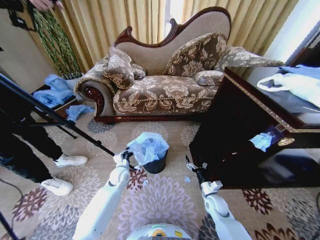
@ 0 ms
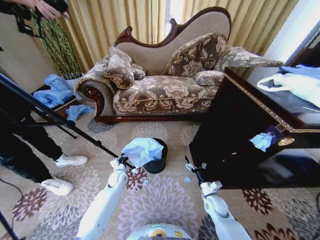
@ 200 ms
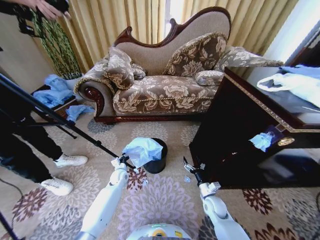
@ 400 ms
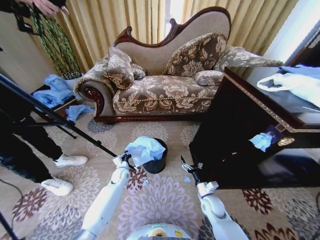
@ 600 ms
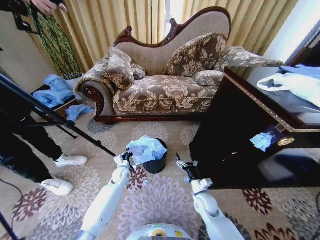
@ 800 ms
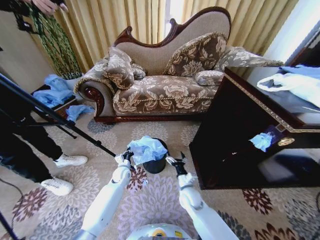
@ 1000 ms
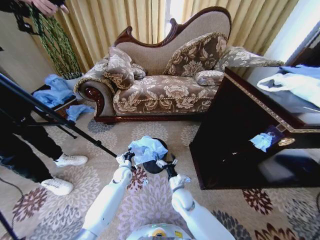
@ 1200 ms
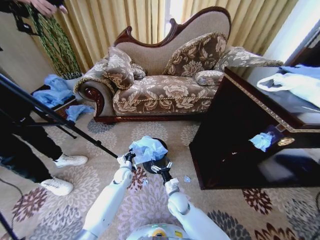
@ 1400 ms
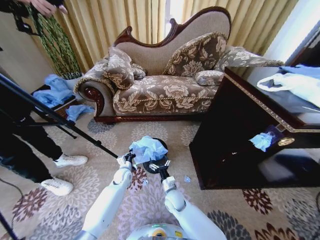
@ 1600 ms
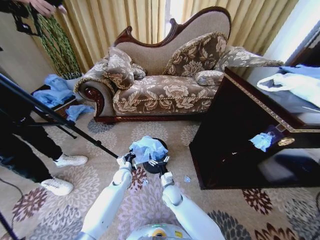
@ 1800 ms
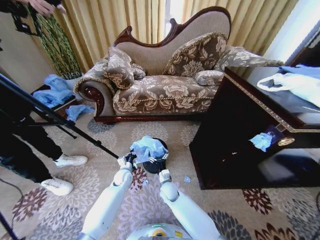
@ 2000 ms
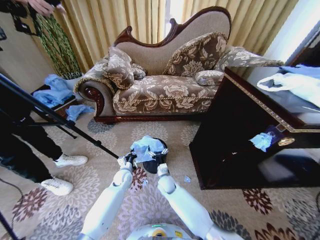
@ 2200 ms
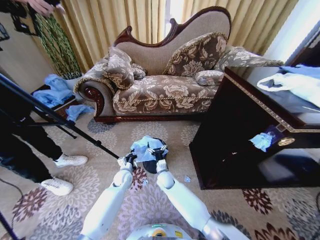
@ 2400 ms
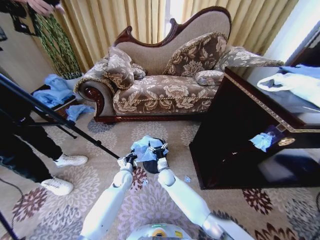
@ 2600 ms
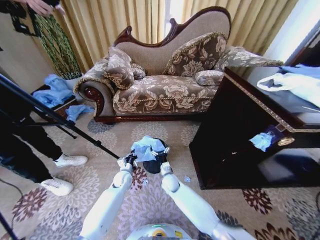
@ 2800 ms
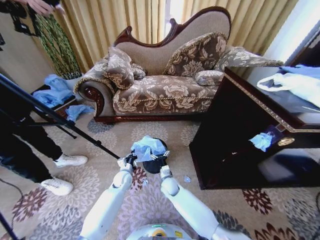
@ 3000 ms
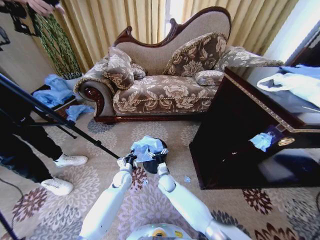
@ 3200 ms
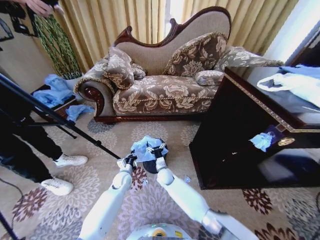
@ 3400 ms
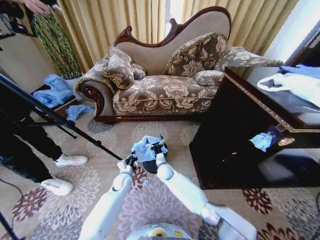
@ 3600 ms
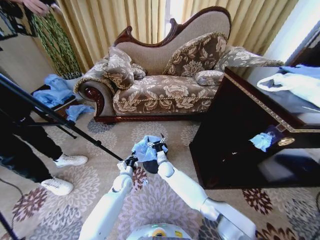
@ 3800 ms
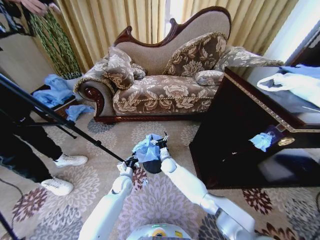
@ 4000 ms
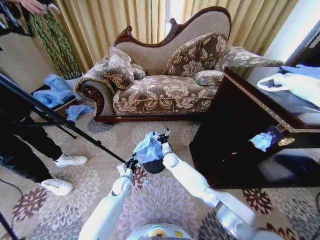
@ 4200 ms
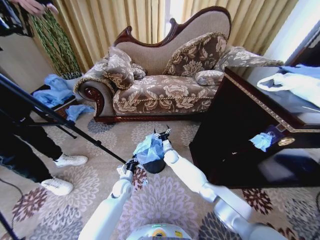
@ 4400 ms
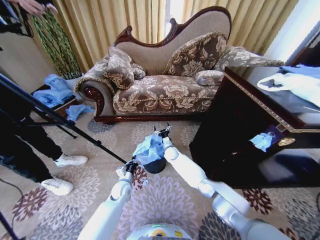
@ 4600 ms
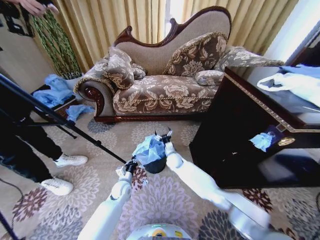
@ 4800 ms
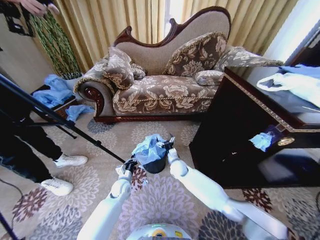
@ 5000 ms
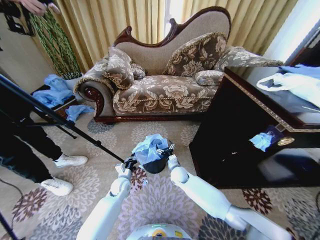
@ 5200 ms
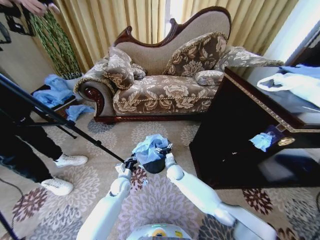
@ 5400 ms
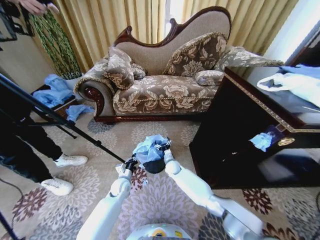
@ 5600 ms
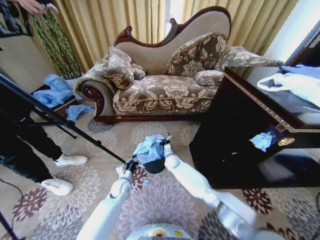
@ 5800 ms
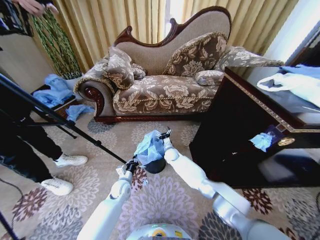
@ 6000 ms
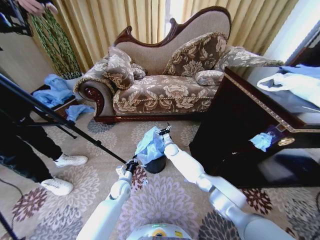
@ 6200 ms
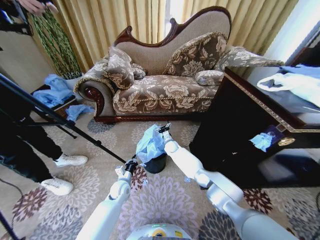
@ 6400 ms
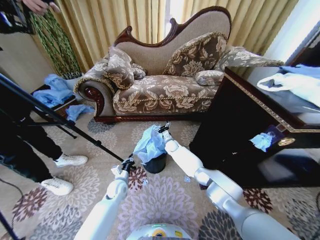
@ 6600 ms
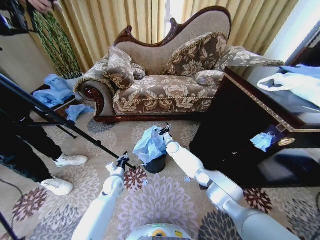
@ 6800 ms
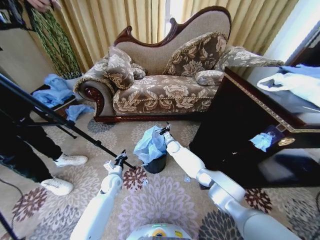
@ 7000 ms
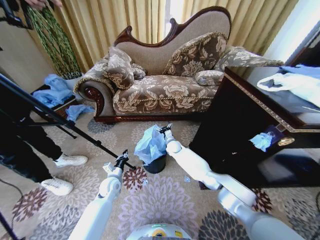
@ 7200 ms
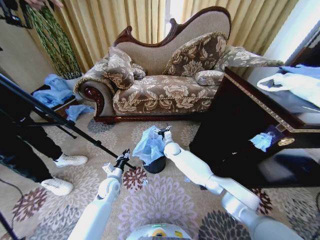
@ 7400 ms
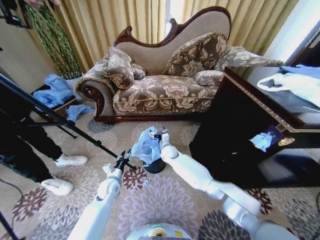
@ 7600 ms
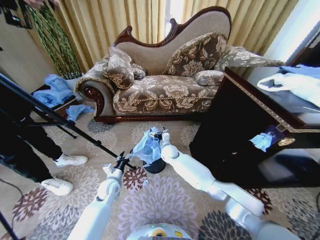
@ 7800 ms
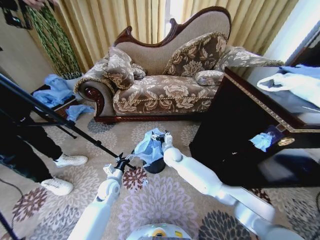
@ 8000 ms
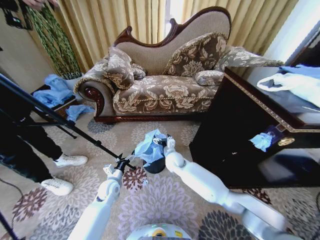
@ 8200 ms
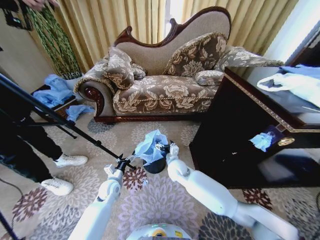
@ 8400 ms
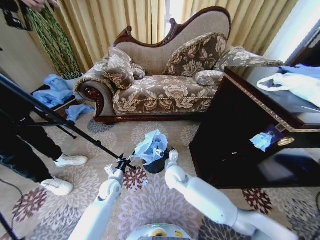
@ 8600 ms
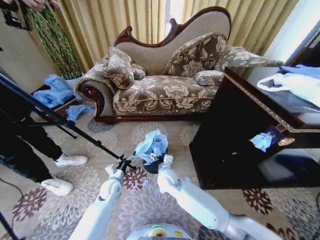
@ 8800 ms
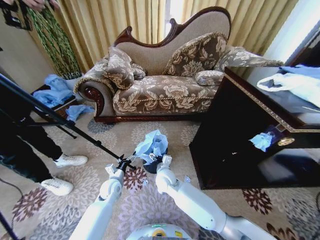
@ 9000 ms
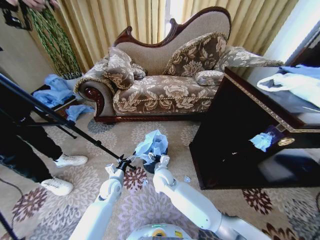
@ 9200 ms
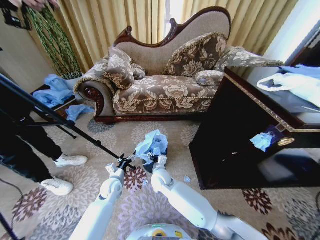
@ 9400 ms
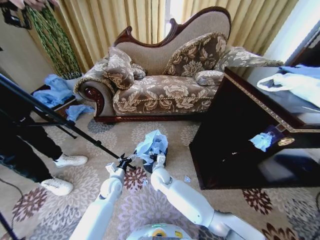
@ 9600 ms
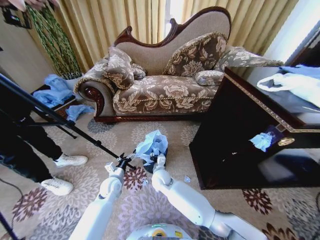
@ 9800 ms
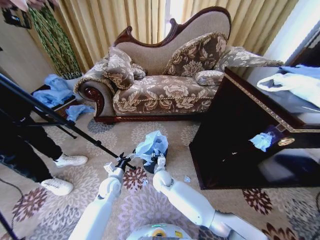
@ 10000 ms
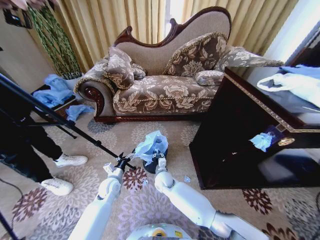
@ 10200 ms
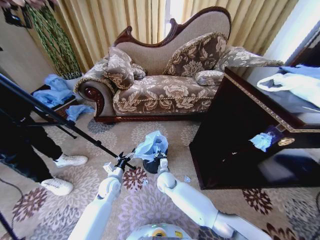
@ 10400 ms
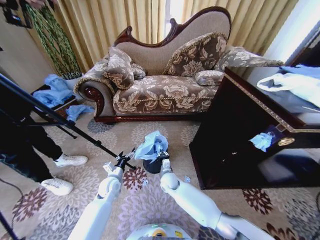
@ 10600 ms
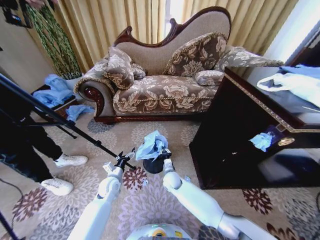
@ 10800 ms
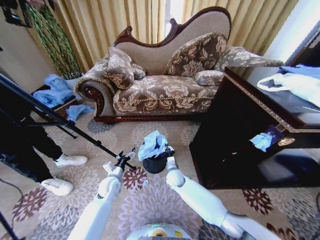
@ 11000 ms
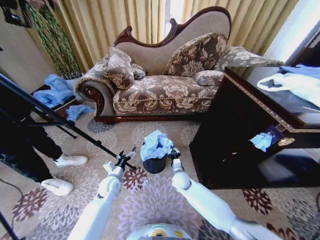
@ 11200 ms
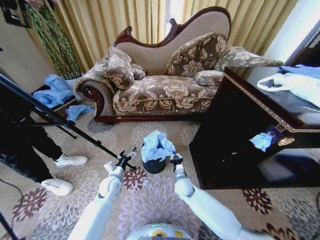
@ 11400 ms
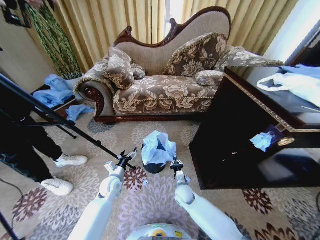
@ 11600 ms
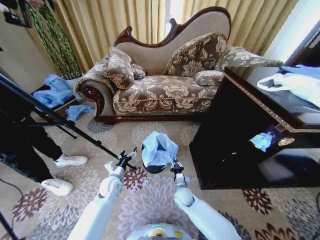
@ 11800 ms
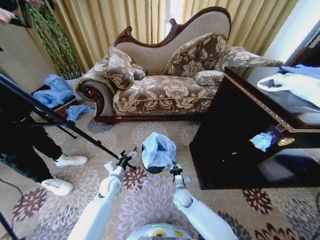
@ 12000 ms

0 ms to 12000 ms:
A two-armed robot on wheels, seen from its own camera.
Task of the whole recording: Place a garbage bag over the trash bin.
0 ms to 1600 ms: The right gripper goes some 20 cm to the left.
1600 ms to 3000 ms: The right gripper moves forward, some 5 cm.
3000 ms to 4400 ms: The right gripper moves forward, some 15 cm.
4400 ms to 6000 ms: The right gripper moves roughly 10 cm backward and comes back.
6000 ms to 7600 ms: The right gripper moves upward, some 5 cm, while the left gripper ends up roughly 5 cm from where it was, and opens.
7600 ms to 9000 ms: The right gripper goes about 15 cm backward; the left gripper opens up.
9000 ms to 10400 ms: The right gripper moves downward, about 10 cm, and closes up.
10400 ms to 12000 ms: The right gripper is displaced to the right, downward and backward by some 15 cm.

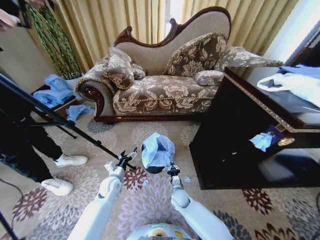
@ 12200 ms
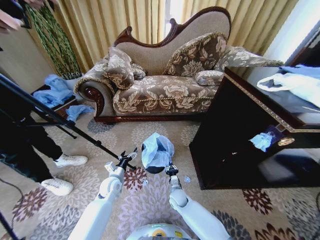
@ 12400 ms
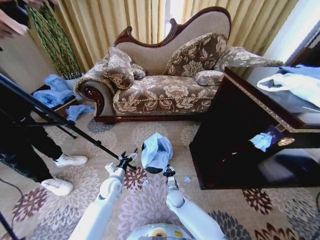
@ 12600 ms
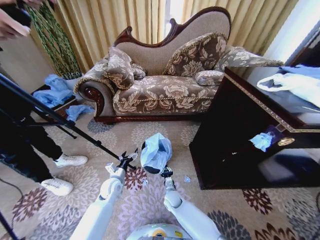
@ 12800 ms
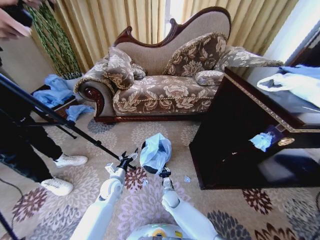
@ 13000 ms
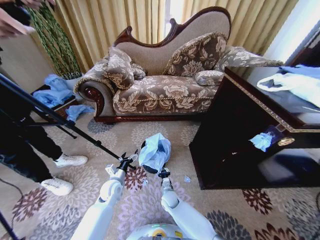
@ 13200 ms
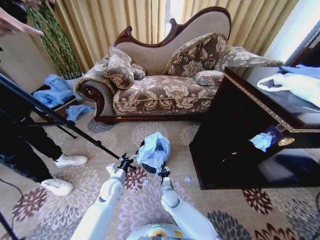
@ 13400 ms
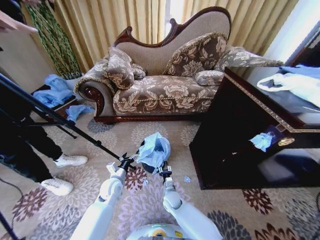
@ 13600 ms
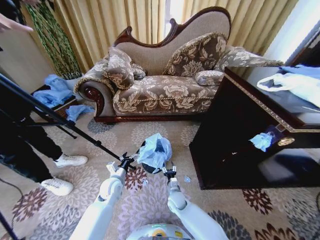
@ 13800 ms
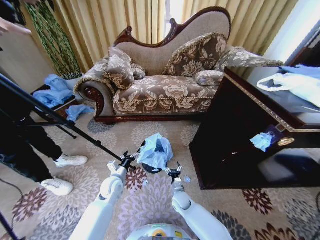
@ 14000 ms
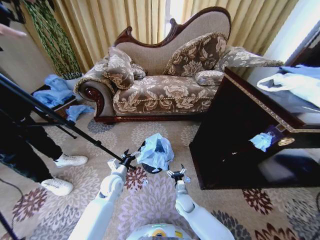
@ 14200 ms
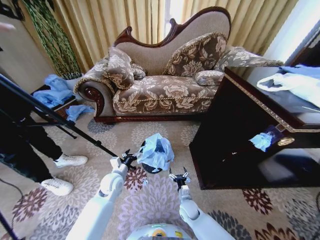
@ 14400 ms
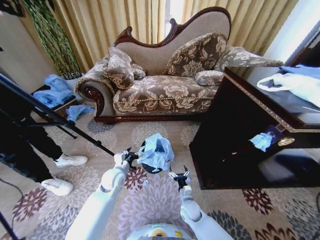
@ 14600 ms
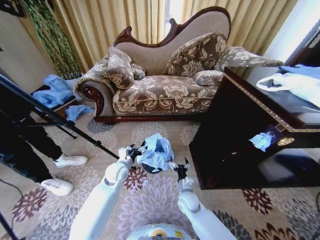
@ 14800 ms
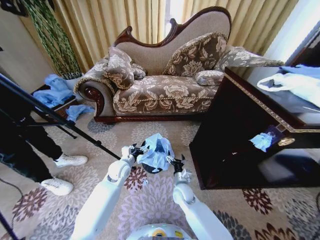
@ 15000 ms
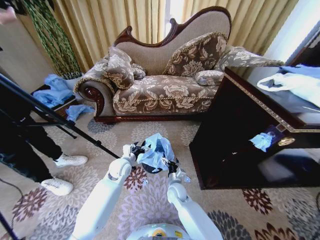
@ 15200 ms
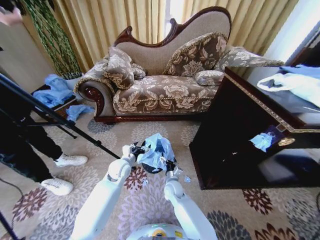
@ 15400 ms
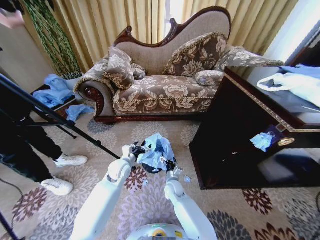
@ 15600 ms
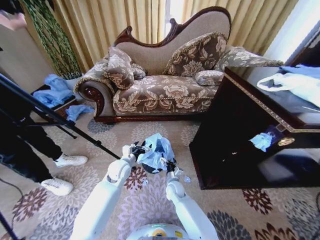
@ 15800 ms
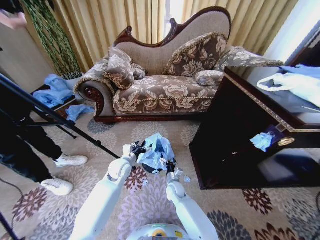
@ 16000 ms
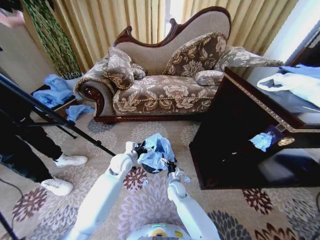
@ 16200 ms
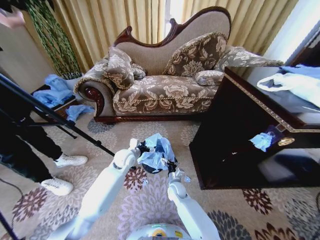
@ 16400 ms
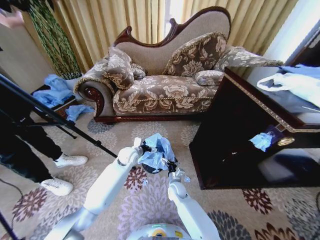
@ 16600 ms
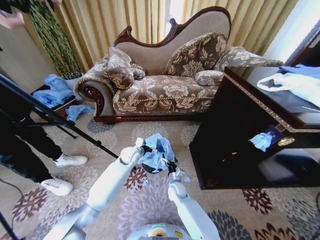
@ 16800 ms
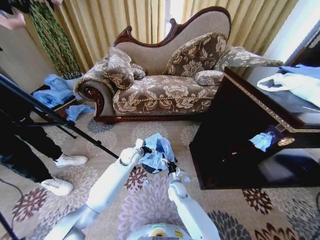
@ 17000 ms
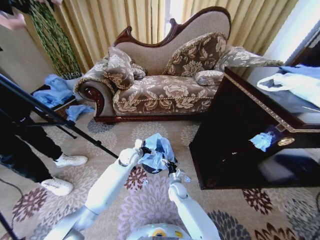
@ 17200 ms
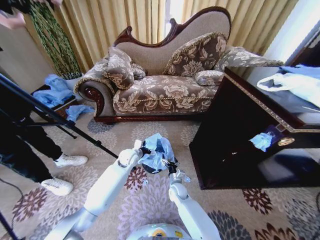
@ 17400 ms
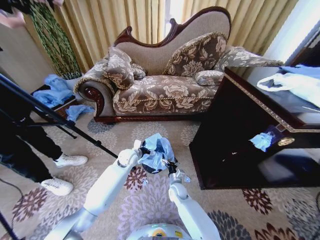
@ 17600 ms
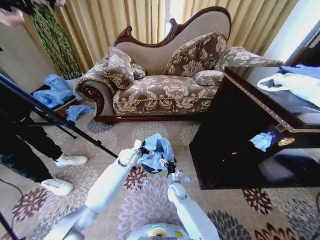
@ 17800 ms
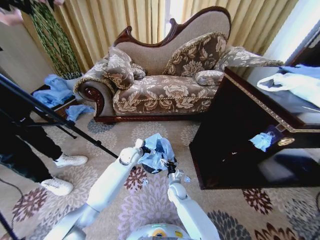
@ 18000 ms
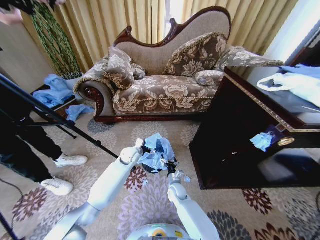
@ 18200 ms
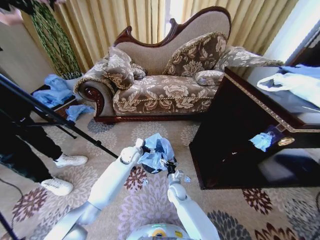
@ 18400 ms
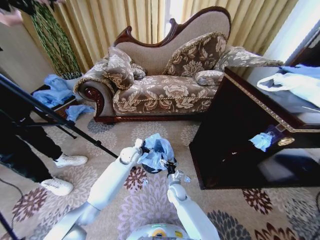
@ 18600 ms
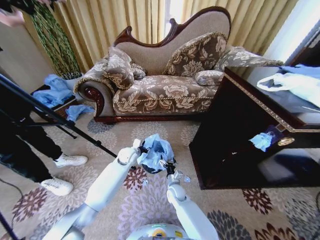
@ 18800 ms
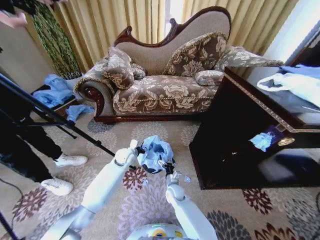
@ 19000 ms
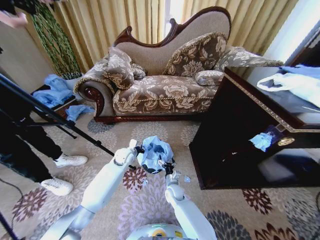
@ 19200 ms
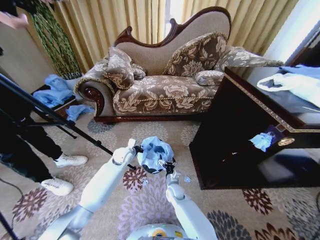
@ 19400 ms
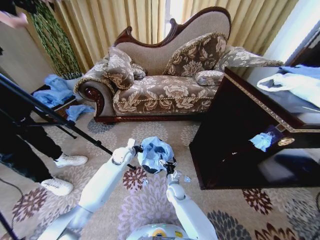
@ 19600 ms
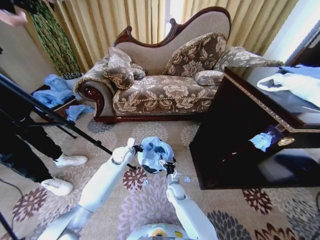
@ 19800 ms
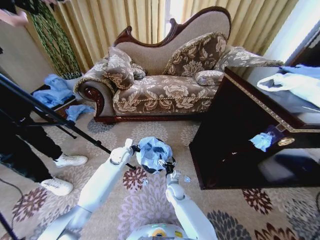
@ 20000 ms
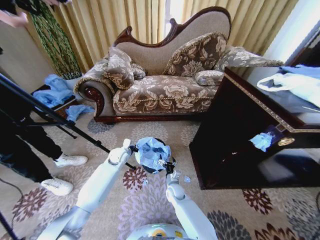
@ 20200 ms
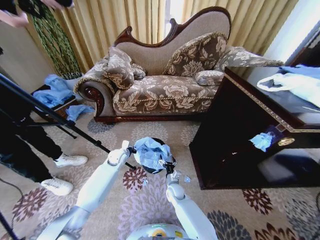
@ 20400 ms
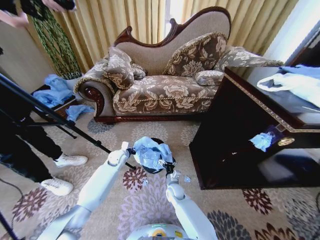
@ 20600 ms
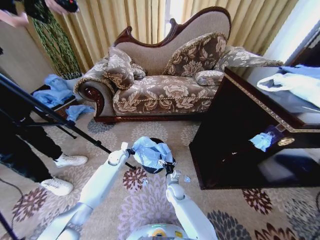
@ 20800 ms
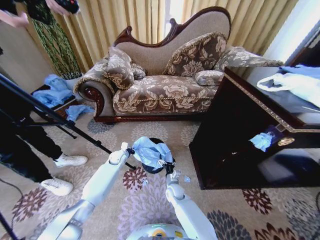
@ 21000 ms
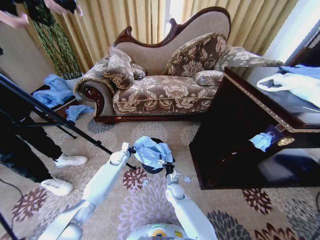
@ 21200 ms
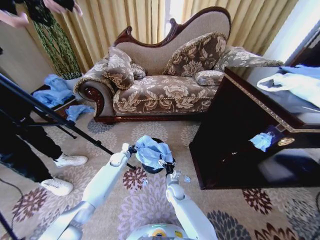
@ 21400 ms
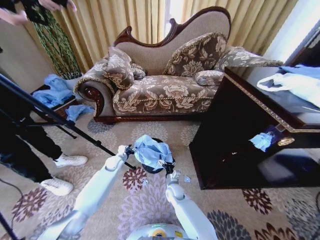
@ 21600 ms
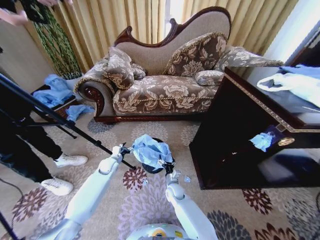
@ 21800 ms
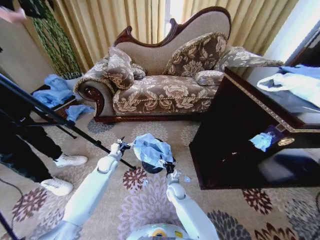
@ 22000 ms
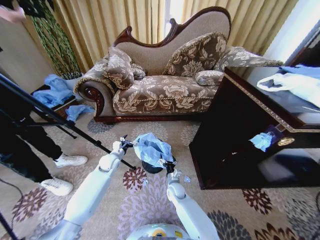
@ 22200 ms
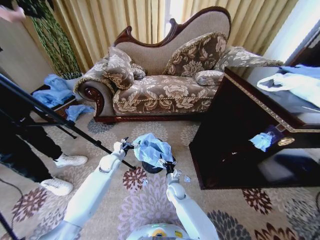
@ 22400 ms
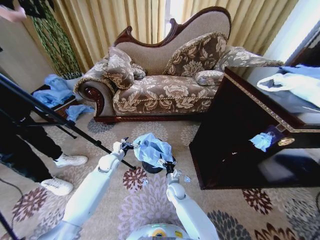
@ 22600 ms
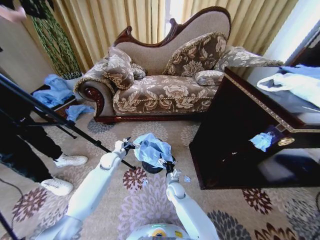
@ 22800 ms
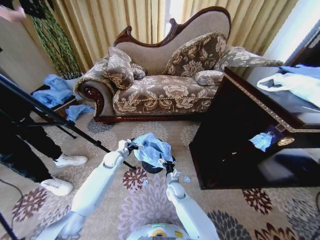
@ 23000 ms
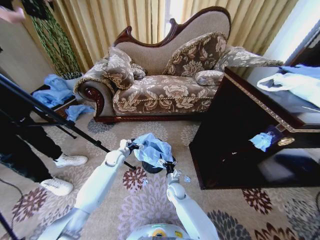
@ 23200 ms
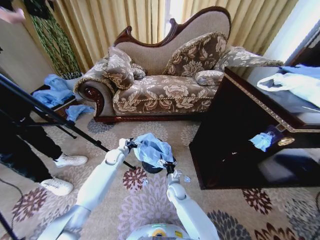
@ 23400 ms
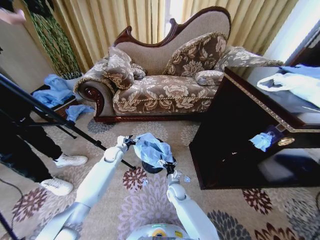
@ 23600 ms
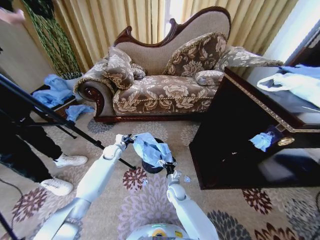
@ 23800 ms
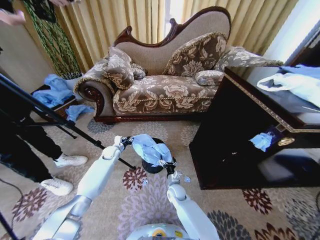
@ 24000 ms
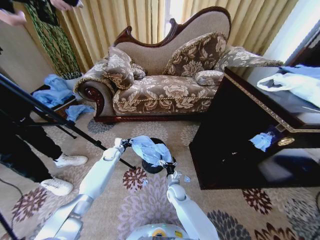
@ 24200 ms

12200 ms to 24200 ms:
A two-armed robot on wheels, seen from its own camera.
Task of the whole recording: Place a garbage bag over the trash bin.
12200 ms to 13800 ms: The right gripper opens up.
13800 ms to 15200 ms: The right gripper shifts some 10 cm upward, and opens. Meanwhile the left gripper moves forward and upward, about 10 cm.
15200 ms to 16600 ms: The left gripper moves forward, approximately 5 cm.
16600 ms to 18200 ms: The grippers move only a little.
18200 ms to 19800 ms: The left gripper closes up.
19800 ms to 21200 ms: The left gripper goes about 10 cm downward.
21200 ms to 22600 ms: The left gripper heads backward and upward, covering some 10 cm, and opens.
22600 ms to 24200 ms: The left gripper goes some 10 cm forward and downward, and closes.
